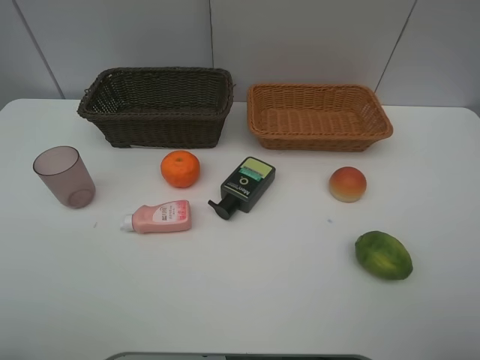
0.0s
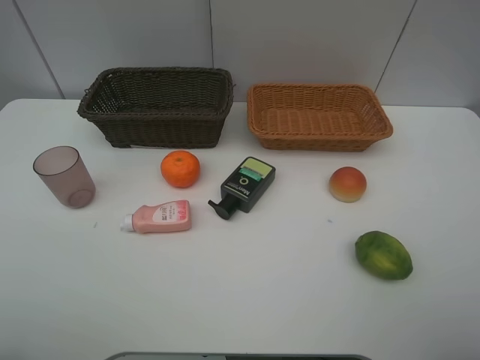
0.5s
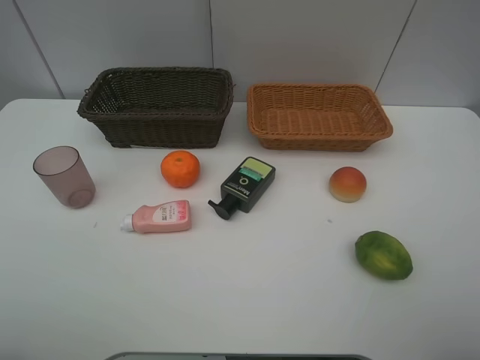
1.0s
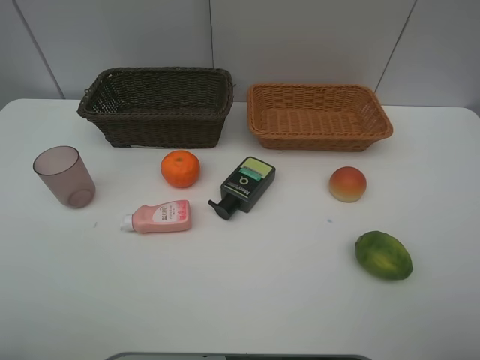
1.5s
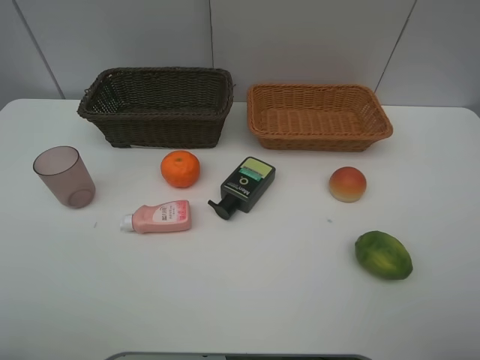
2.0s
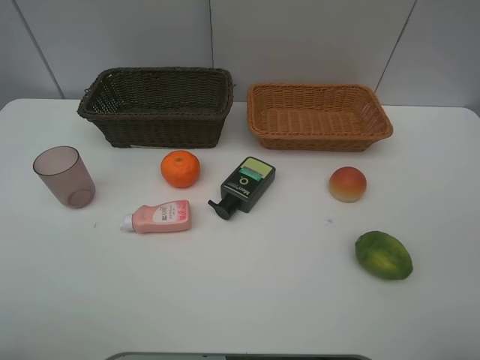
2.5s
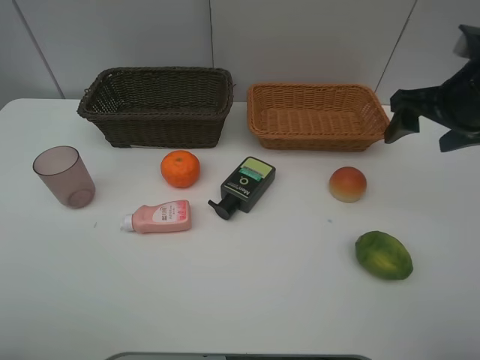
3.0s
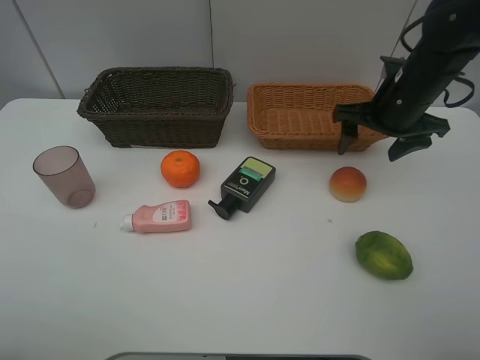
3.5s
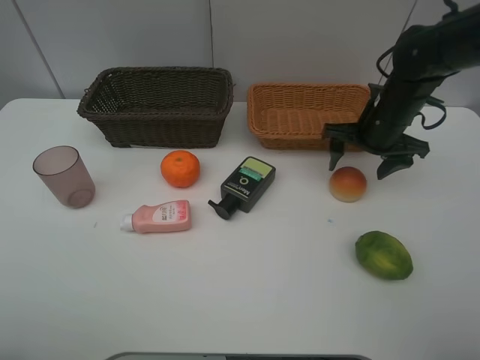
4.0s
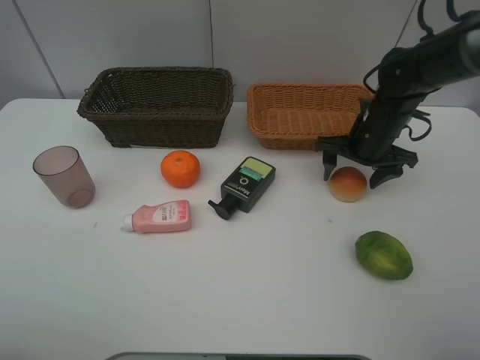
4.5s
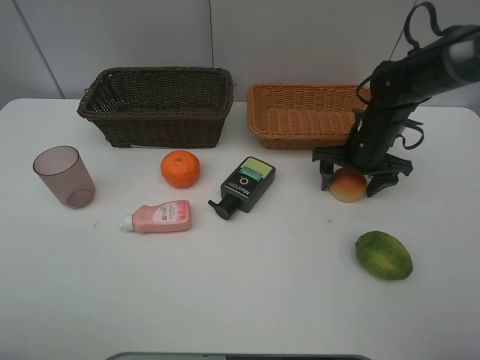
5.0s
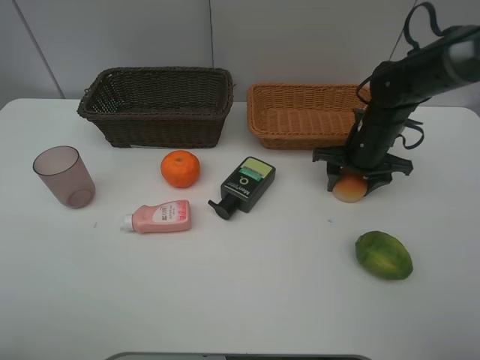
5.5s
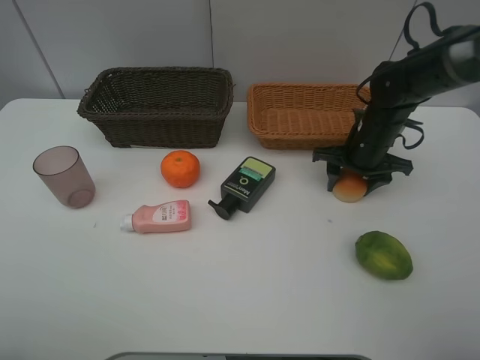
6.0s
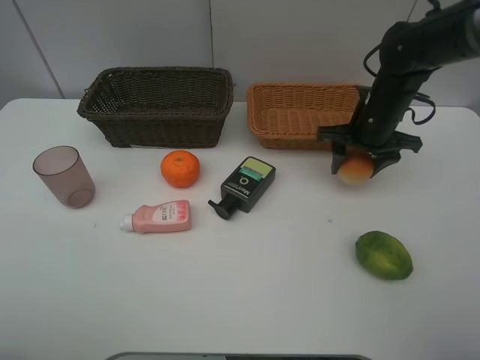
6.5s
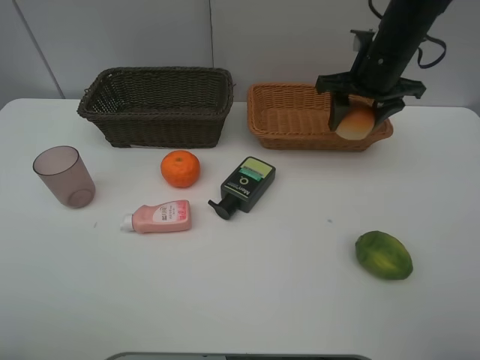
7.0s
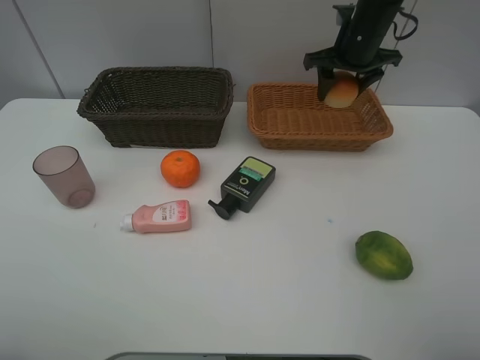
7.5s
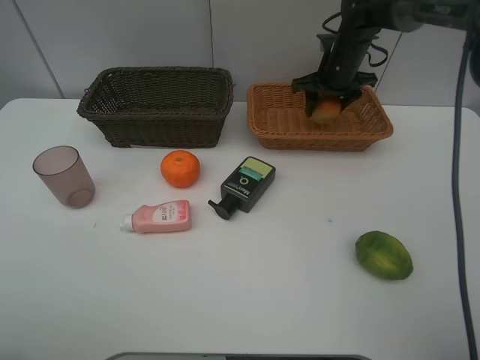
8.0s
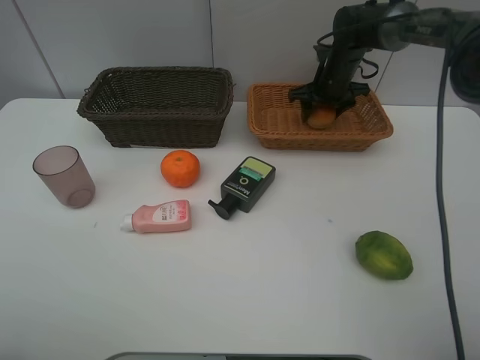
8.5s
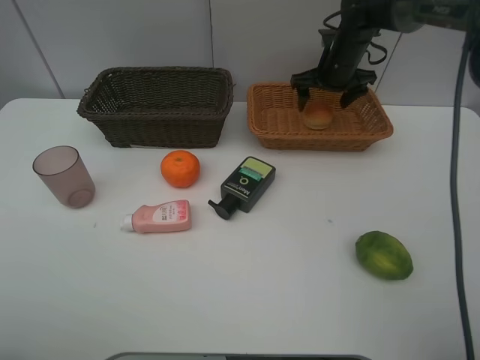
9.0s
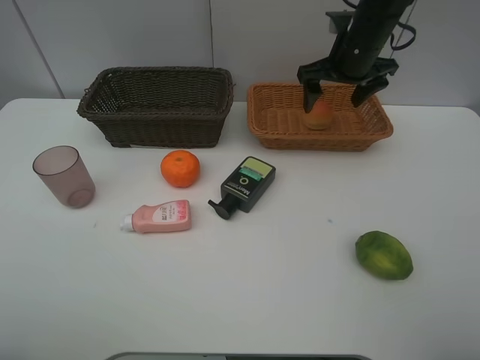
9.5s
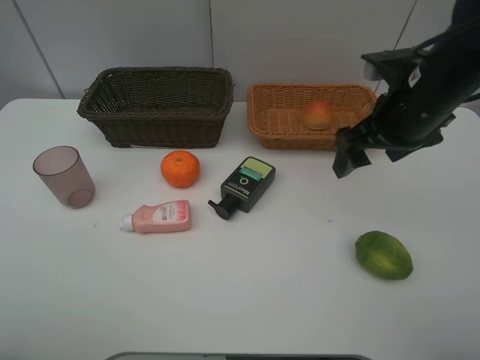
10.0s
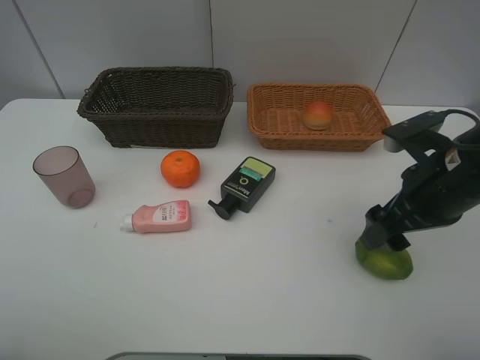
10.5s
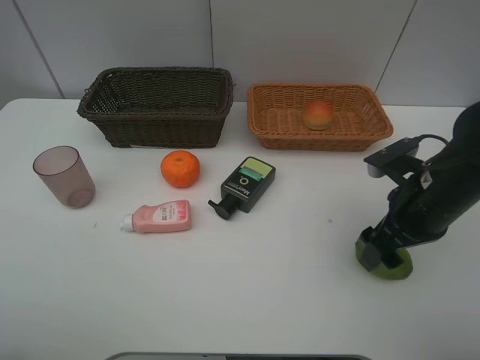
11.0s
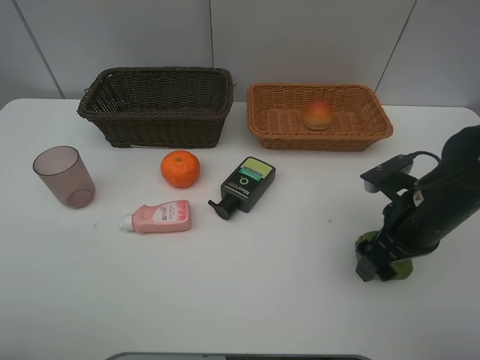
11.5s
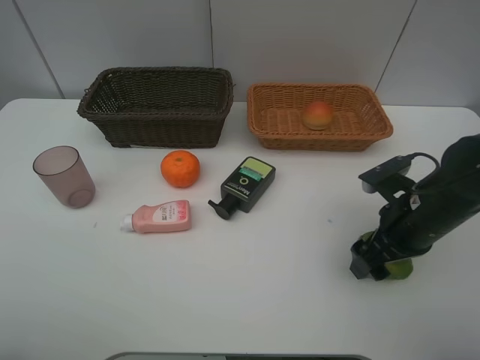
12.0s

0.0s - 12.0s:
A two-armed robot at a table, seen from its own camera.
Task of the whole recording: place multiple objects separately in different baskets.
0.0s - 2.0s: Both grippers stay about where they are.
2.0s - 4.0s: The right gripper shifts about 35 cm forward.
4.0s - 6.0s: The right gripper closes.
6.0s - 8.0s: The right gripper goes roughly 15 cm forward and upward.
8.0s - 10.0s: The right gripper is displaced backward by some 25 cm, and opens its fingers.
10.0s - 12.0s: The right gripper travels downward and backward by roughly 15 cm.

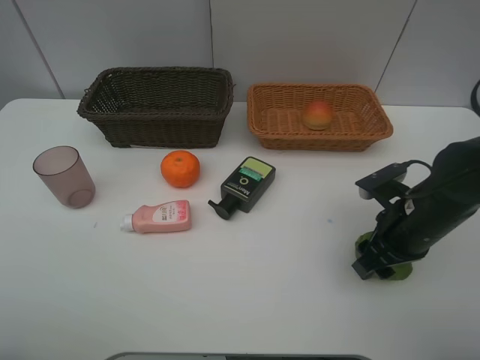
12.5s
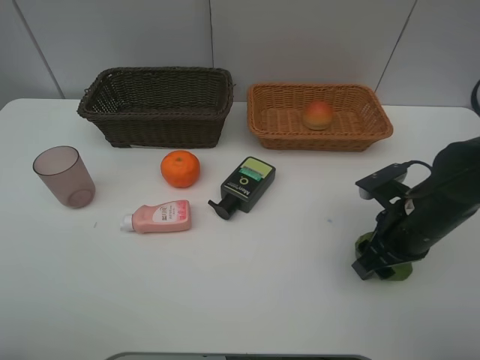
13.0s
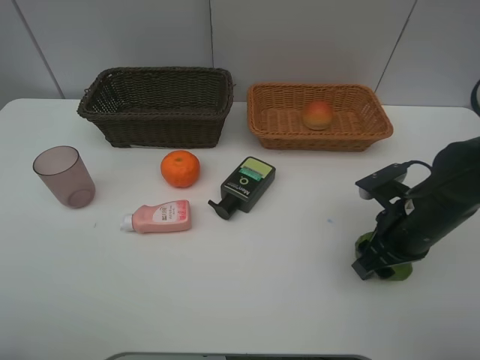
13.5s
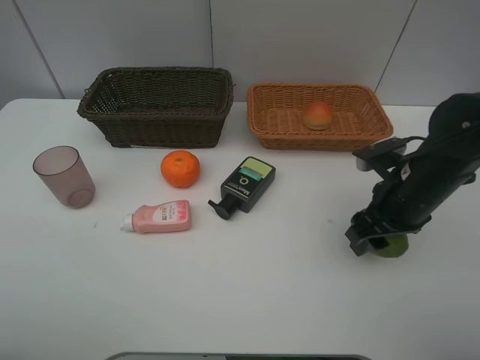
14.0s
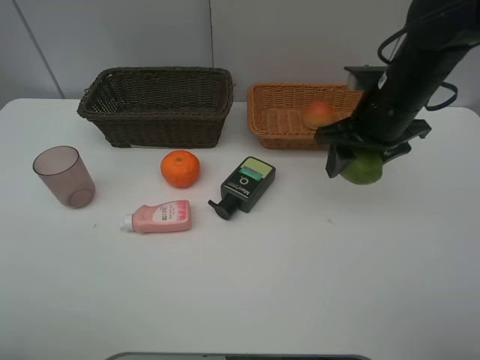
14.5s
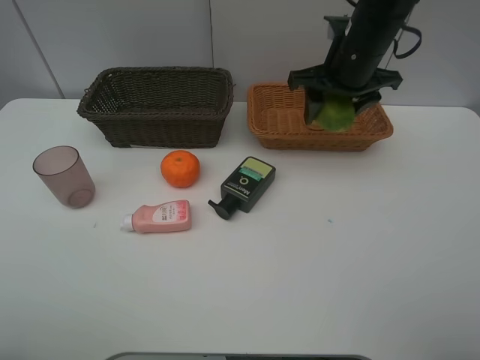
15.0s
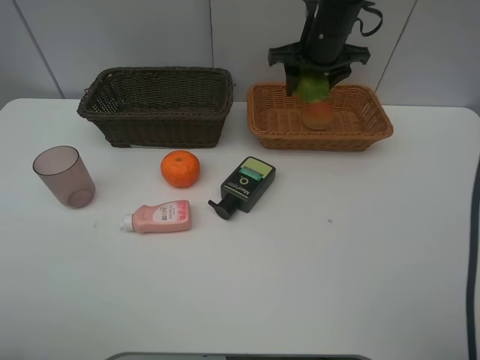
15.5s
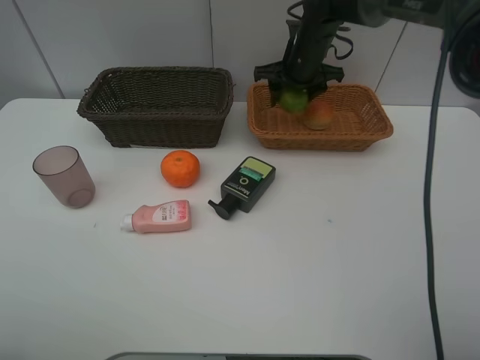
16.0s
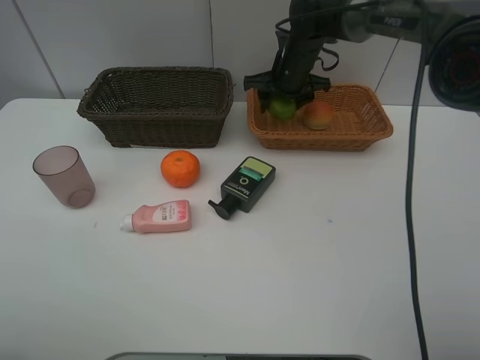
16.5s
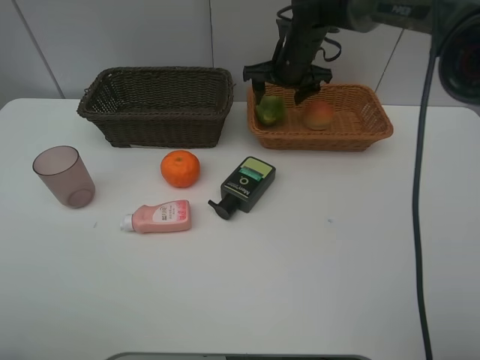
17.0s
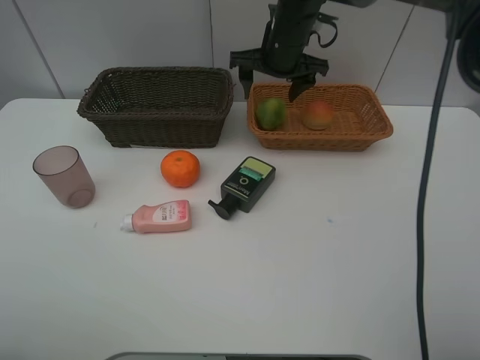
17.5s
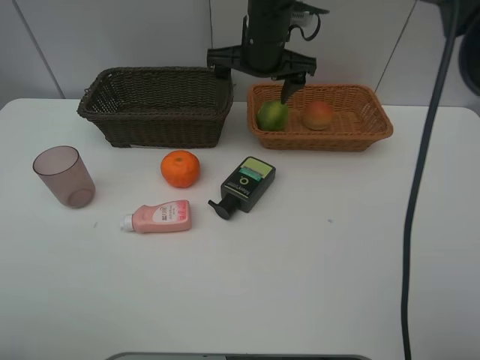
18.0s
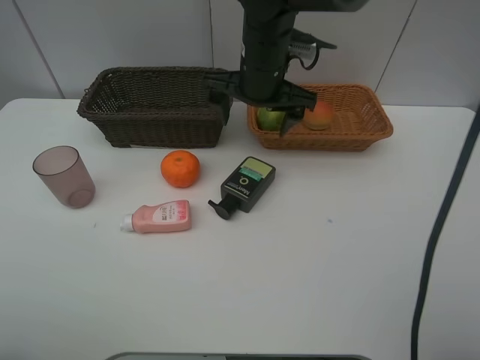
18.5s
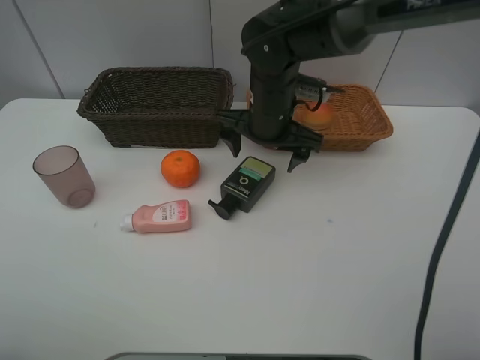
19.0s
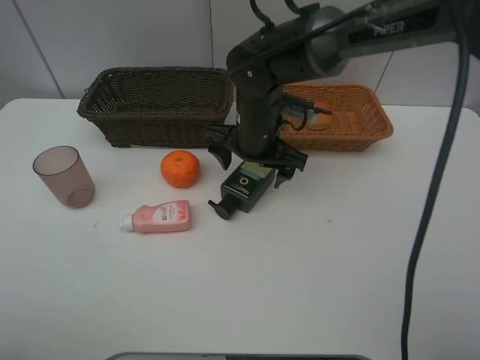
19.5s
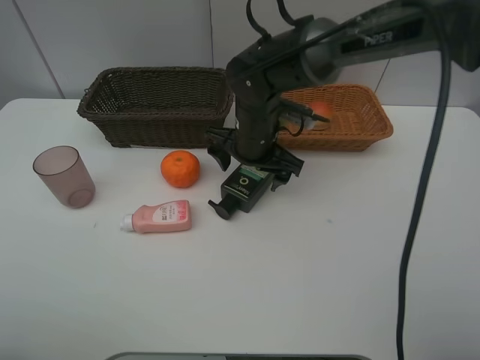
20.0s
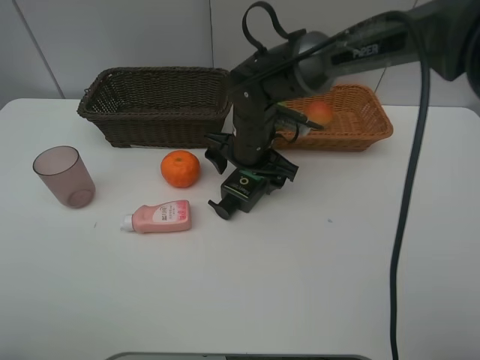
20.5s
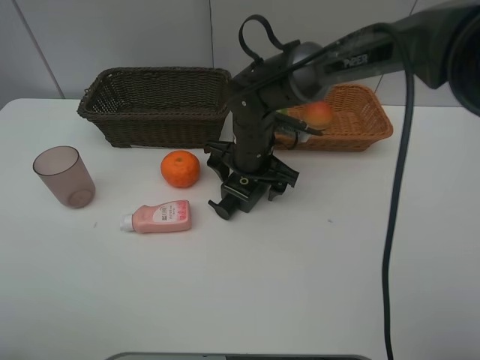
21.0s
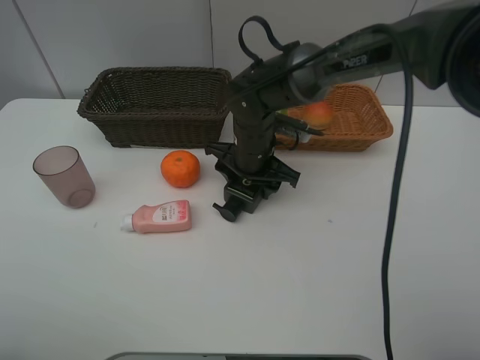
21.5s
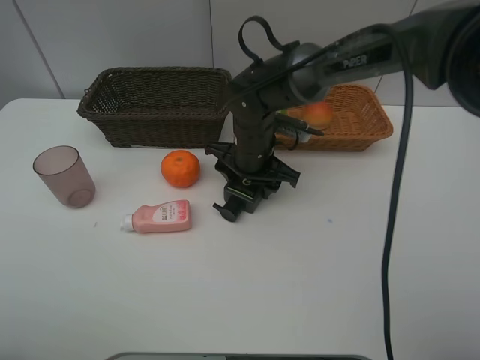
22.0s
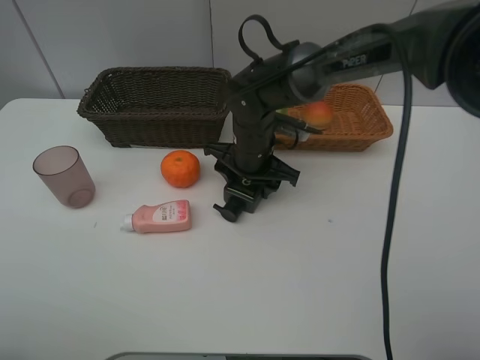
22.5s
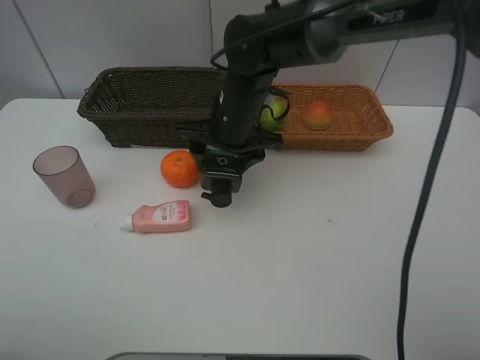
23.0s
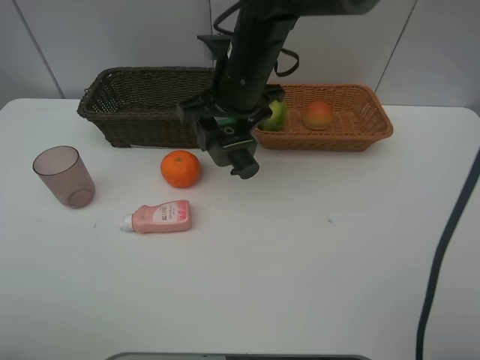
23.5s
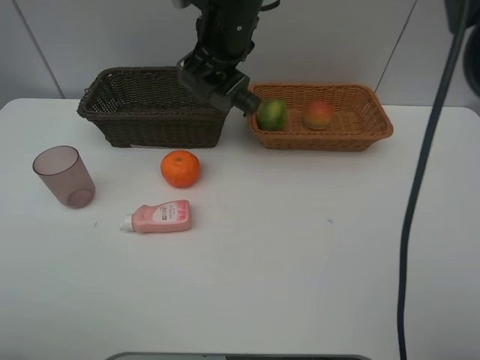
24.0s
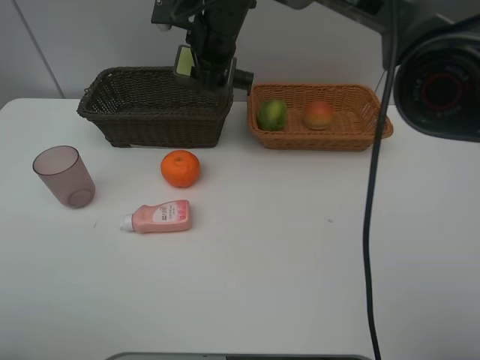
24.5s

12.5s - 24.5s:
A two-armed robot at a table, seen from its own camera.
Task of the whole recording: place multiple objects separately in different baskets.
12.5s - 14.5s: The right gripper heads upward and forward, covering some 15 cm.
14.5s - 16.5s: The right gripper is displaced forward and to the left by about 20 cm.
16.5s - 18.5s: The right gripper heads backward, to the left and upward, covering about 15 cm, and opens.
18.5s - 20.5s: The right gripper moves downward, some 10 cm.
20.5s - 22.5s: The right gripper closes.
22.5s - 24.5s: The right gripper moves upward and forward, approximately 15 cm.

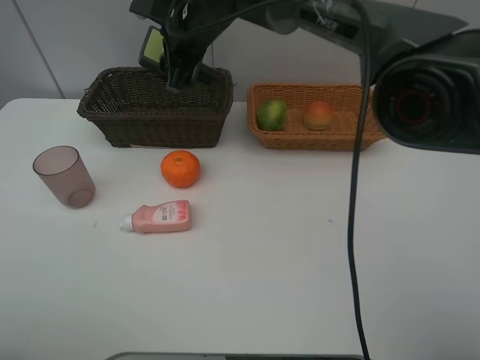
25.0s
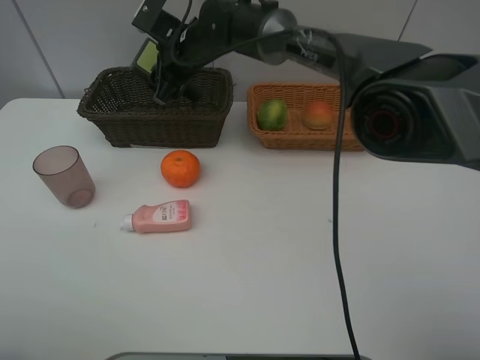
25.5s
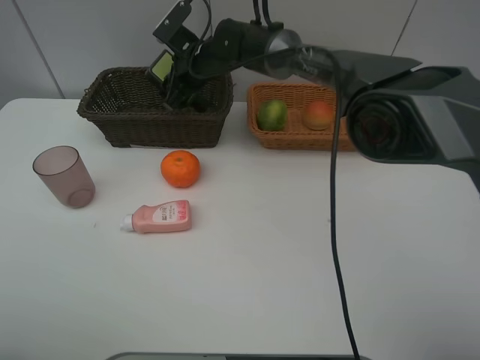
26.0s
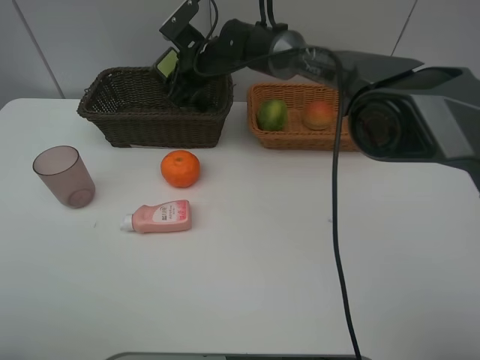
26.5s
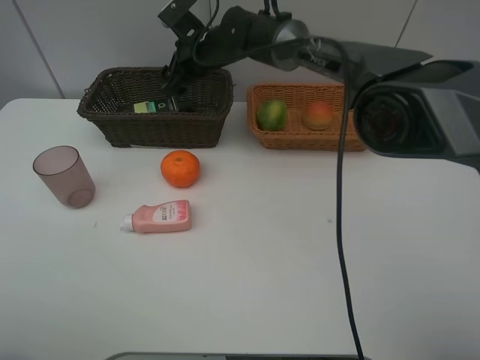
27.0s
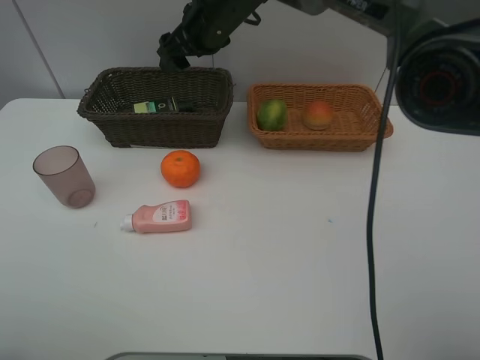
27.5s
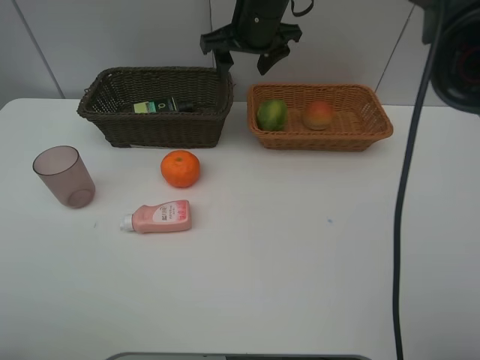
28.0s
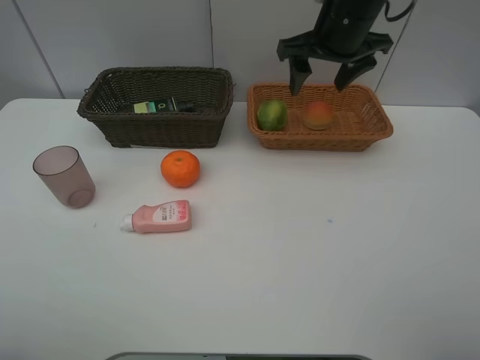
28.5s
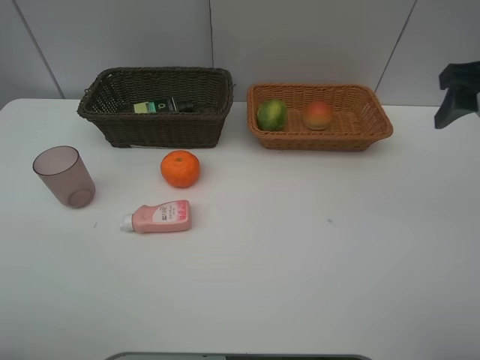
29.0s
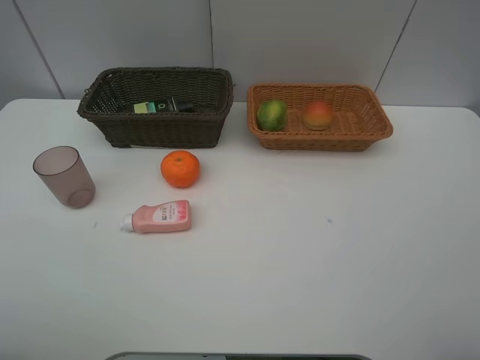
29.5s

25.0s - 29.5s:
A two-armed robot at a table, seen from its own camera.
Task of the whole recording: place multiple objects separately in different baskets.
25.0s - 27.0s: The right gripper shifts by about 5 cm.
27.0s - 29.5s: The right gripper goes roughly 50 cm backward, to the right and upward.
